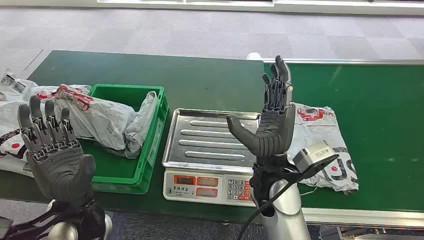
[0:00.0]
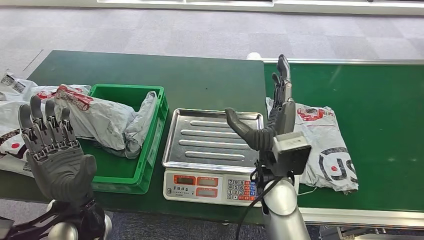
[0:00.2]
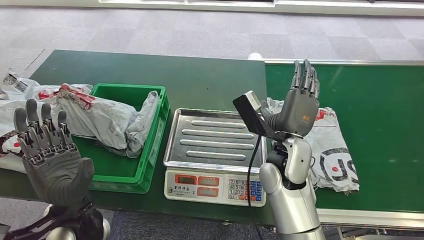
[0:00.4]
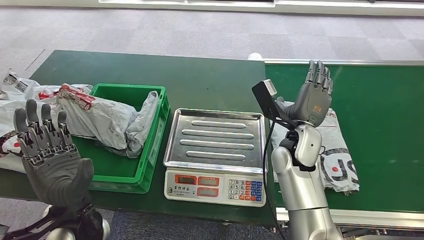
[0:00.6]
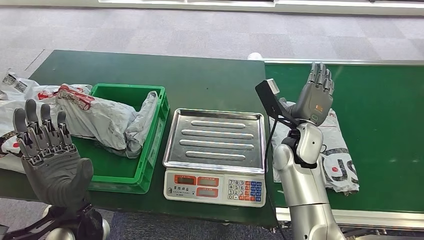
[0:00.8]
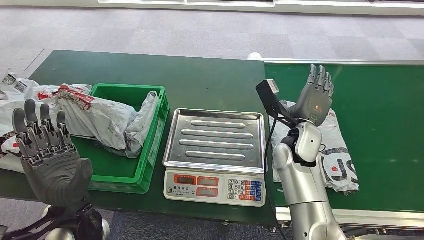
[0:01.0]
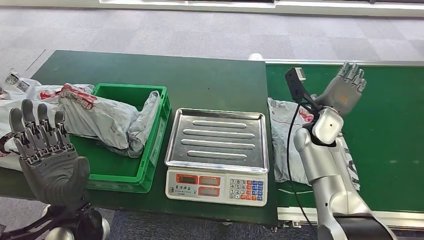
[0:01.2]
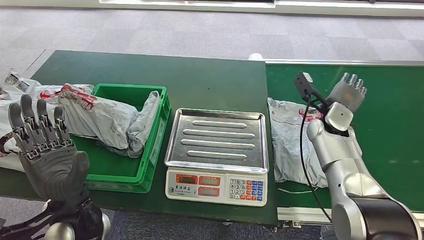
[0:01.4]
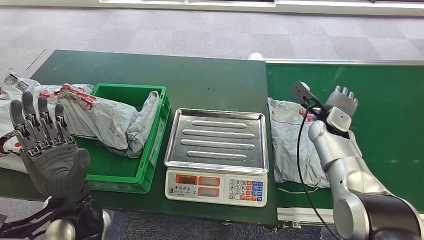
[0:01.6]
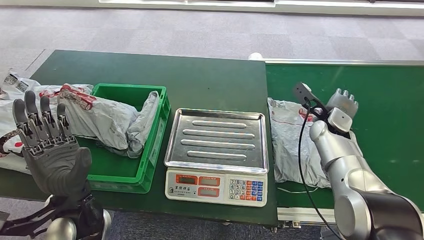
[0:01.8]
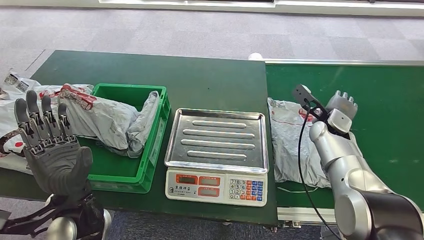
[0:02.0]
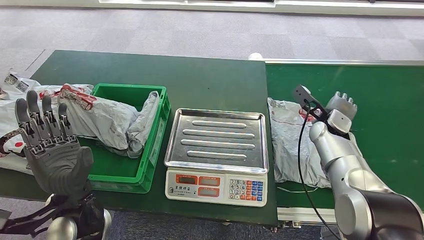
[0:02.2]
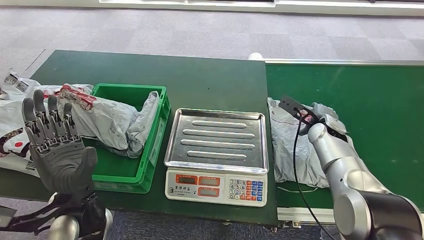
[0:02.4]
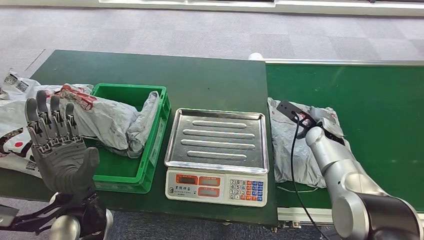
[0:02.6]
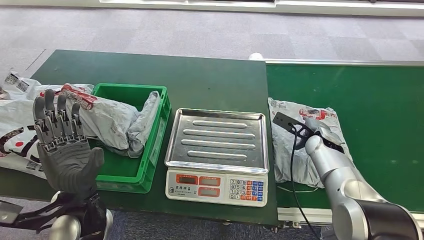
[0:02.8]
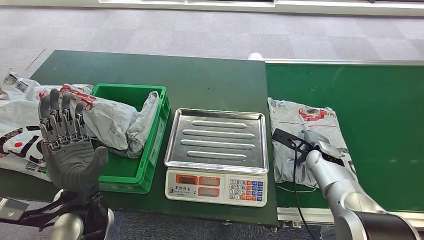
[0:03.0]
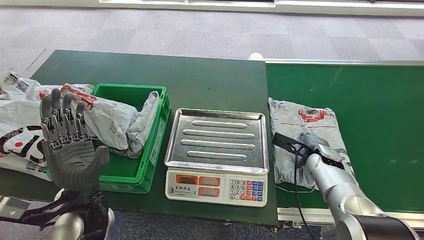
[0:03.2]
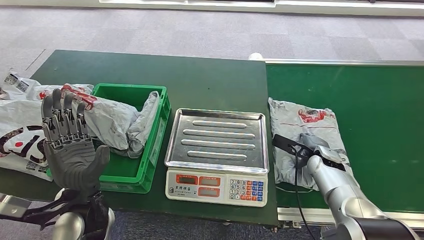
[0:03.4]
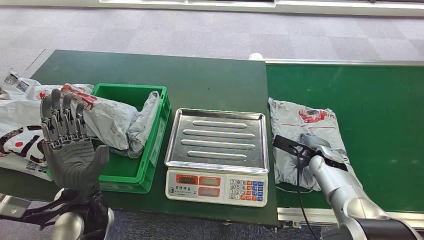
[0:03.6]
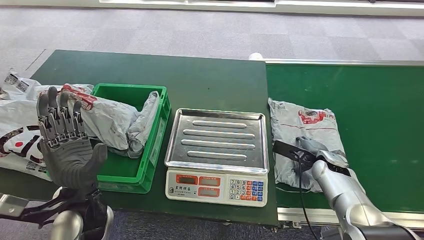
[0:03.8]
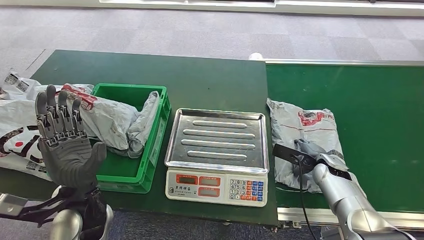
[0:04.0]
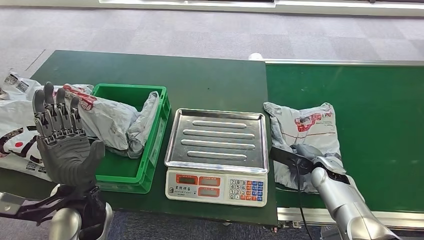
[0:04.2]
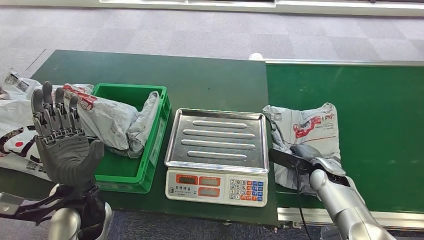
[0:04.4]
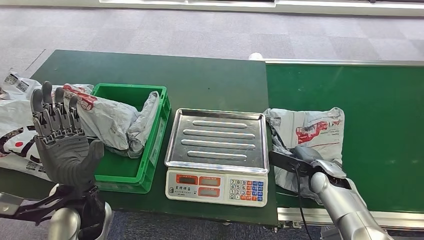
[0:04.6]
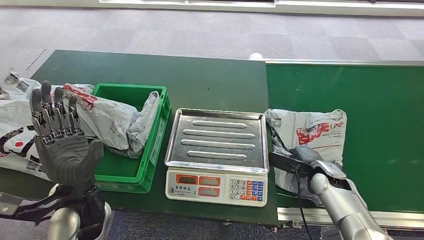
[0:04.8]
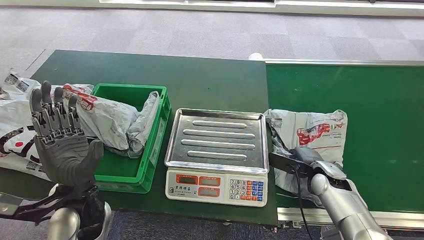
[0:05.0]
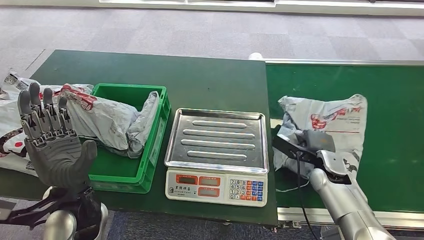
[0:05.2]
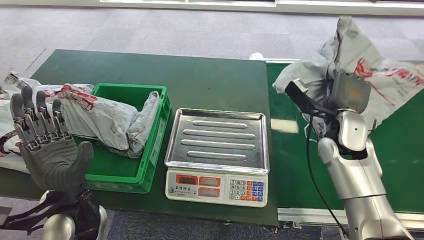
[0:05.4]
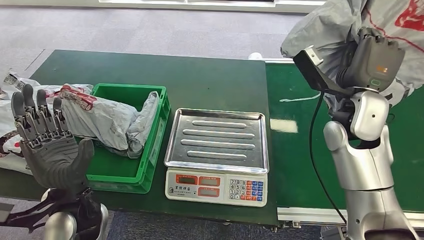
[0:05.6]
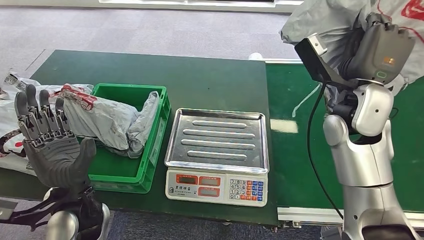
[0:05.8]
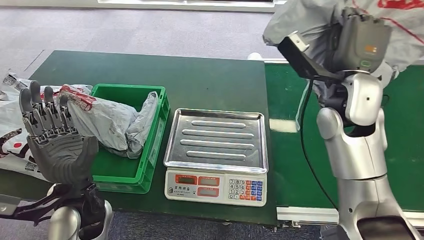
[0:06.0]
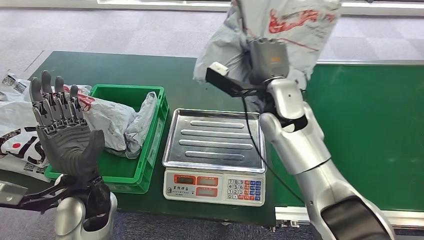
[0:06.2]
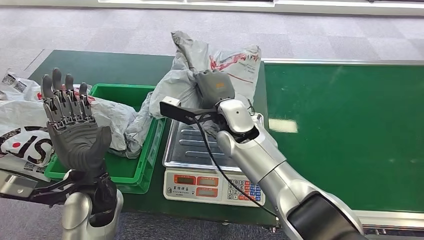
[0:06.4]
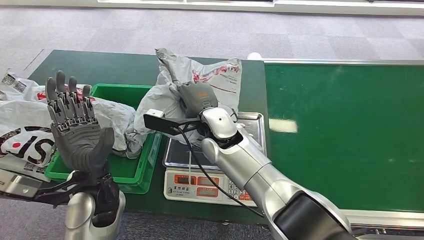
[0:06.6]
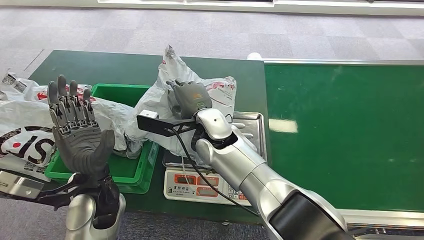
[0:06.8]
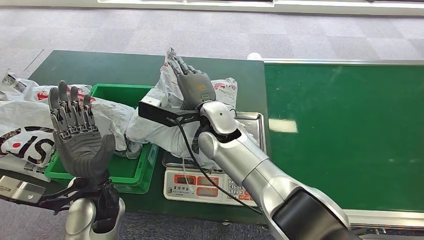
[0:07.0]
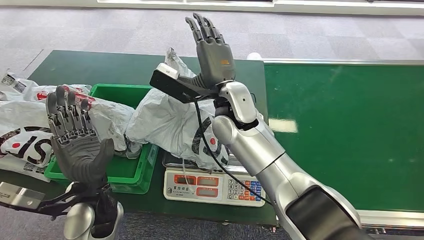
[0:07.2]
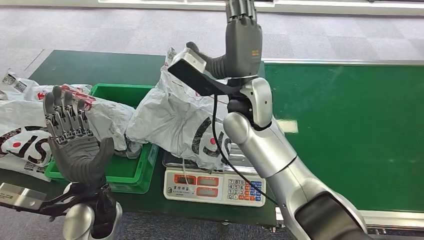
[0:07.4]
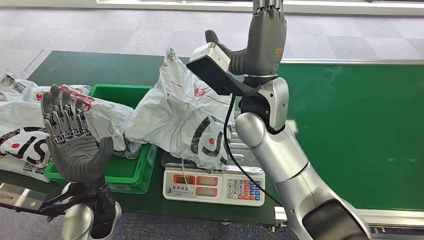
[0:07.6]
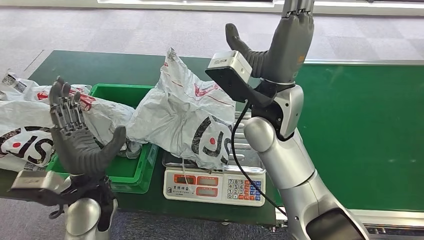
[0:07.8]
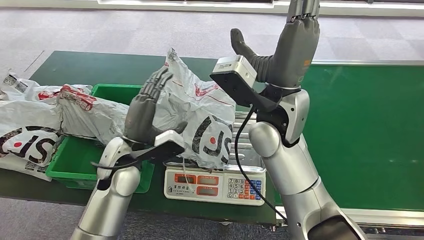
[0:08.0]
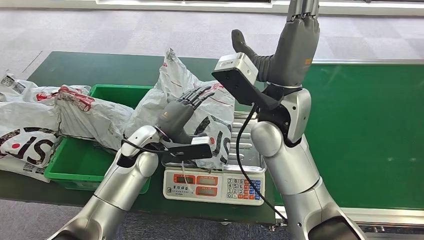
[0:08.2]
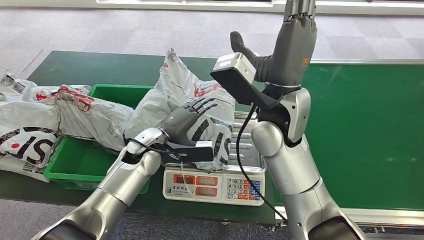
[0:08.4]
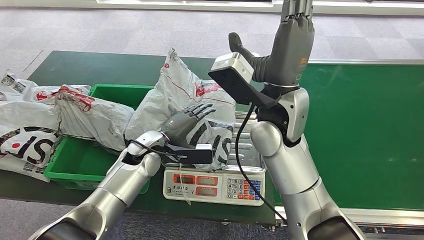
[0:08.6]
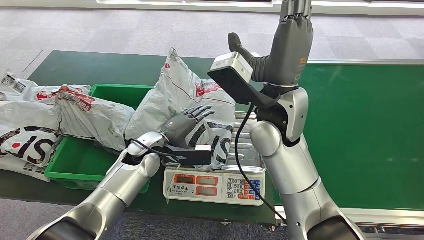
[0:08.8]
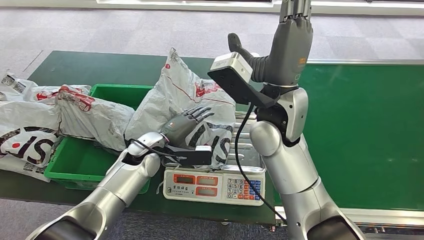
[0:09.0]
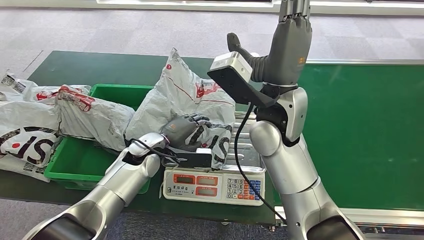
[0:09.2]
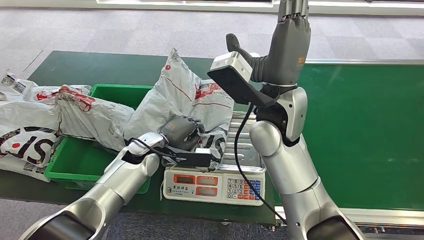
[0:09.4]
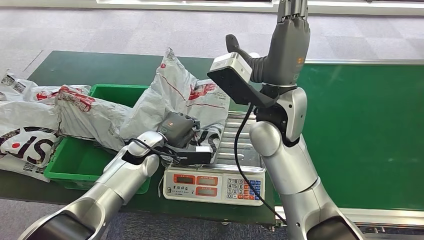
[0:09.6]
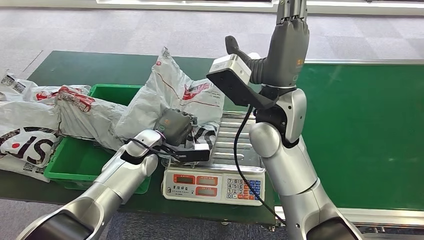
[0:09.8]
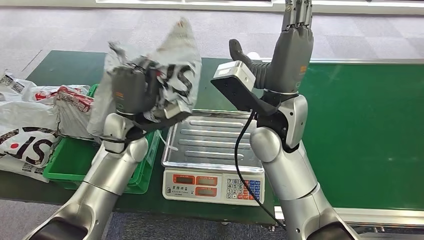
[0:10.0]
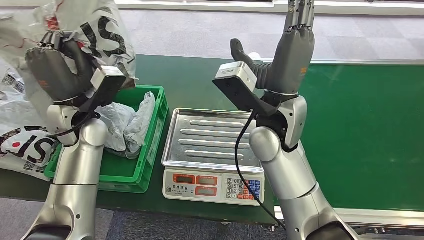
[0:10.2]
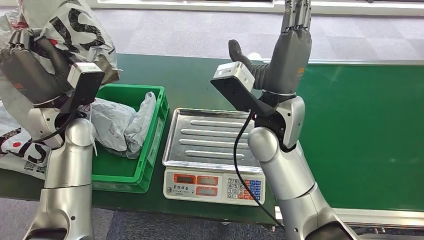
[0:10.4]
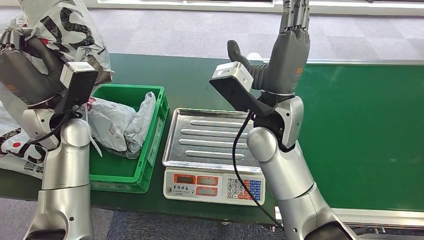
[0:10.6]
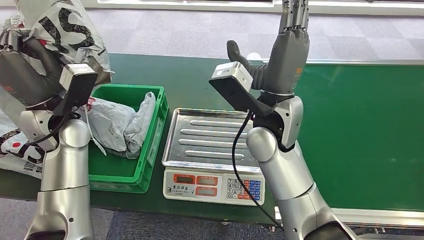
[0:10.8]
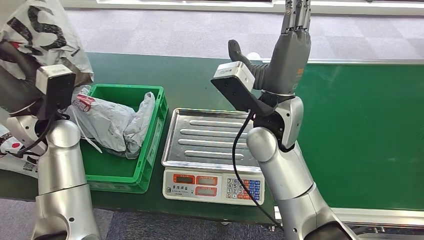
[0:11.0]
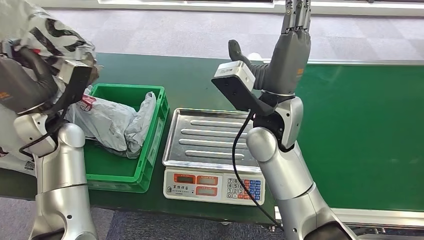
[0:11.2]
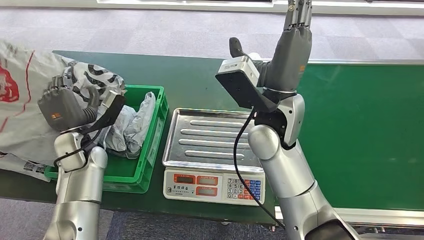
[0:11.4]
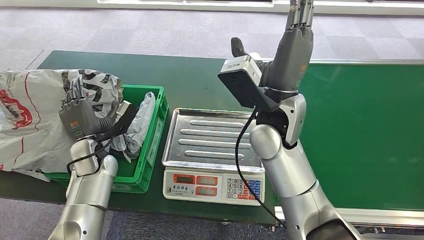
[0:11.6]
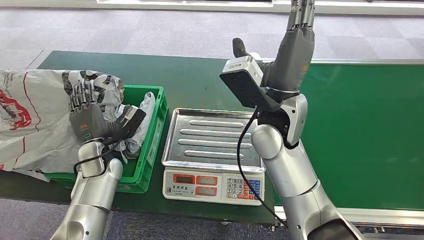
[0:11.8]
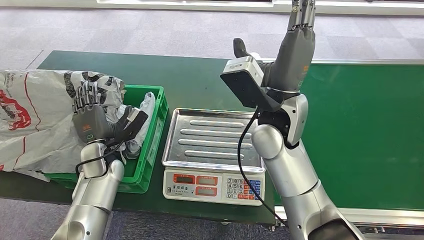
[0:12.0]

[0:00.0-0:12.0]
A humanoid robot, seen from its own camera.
Step, 0:00.0 to 0:05.6: Pick up the package from the conveyor belt.
Step, 0:06.0 to 0:07.6: Place the package onto the inbound machine.
Step, 0:07.8 to 0:10.4: Pick up the package from the inbound machine.
Step, 0:10.6 to 0:12.0: Place the package into the parcel locker.
0:01.6 to 0:03.0: The right hand shifts approximately 10 cm downward and backward.
0:03.0 to 0:04.4: The right hand changes place by about 5 cm.
